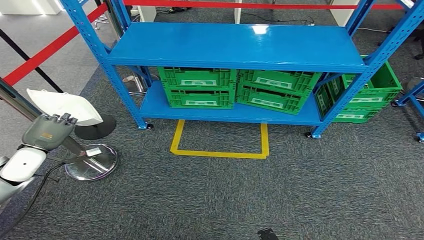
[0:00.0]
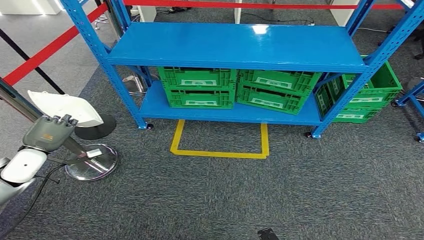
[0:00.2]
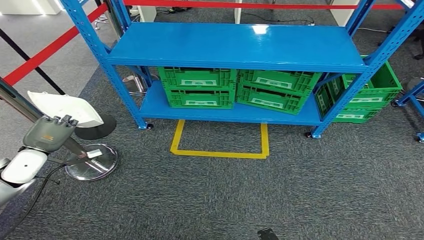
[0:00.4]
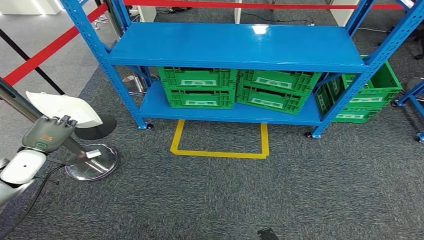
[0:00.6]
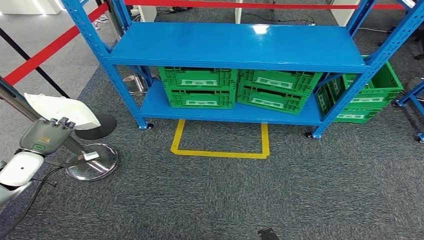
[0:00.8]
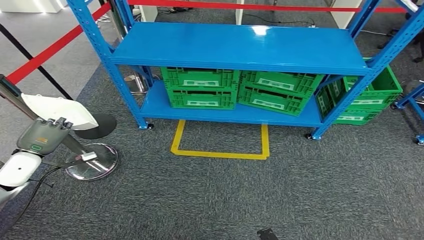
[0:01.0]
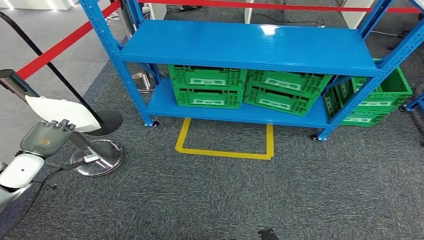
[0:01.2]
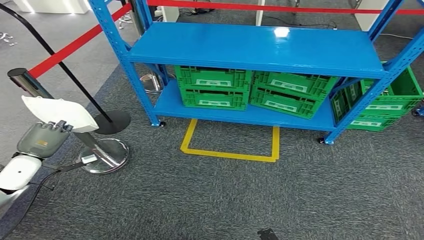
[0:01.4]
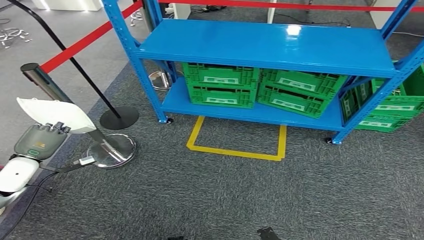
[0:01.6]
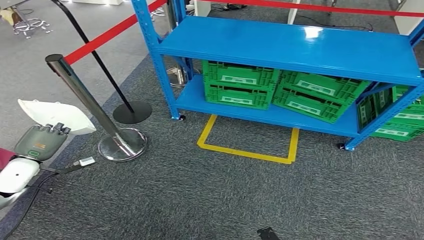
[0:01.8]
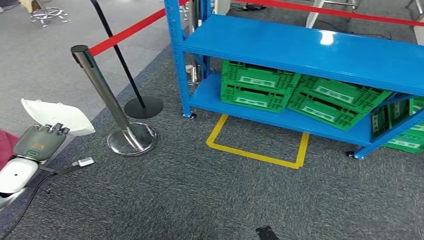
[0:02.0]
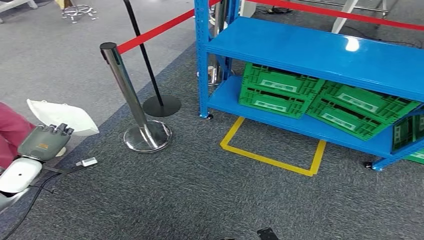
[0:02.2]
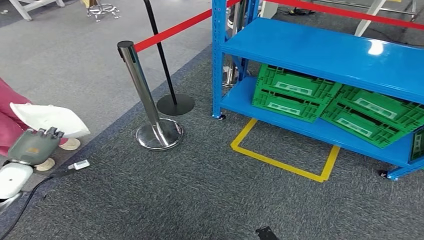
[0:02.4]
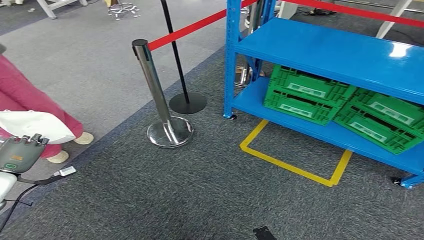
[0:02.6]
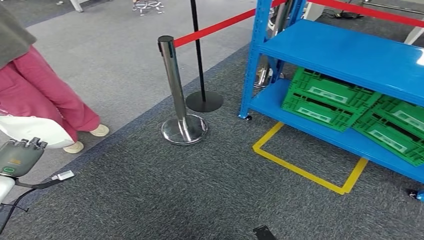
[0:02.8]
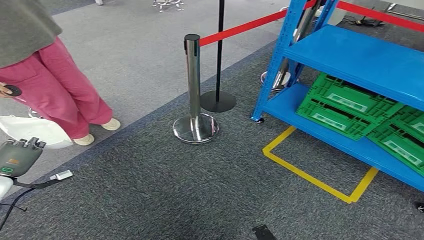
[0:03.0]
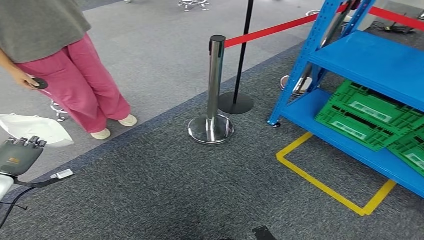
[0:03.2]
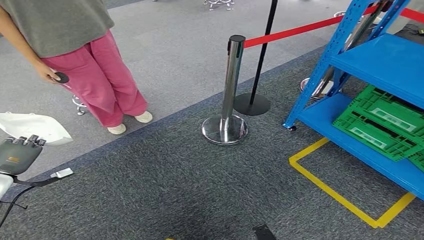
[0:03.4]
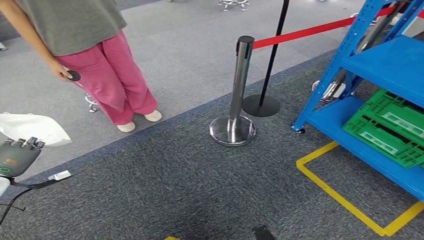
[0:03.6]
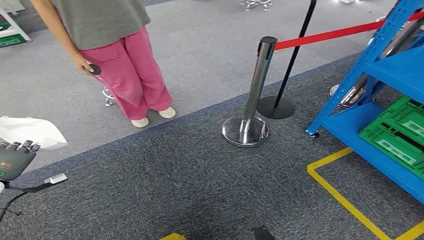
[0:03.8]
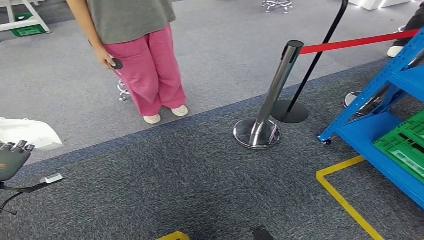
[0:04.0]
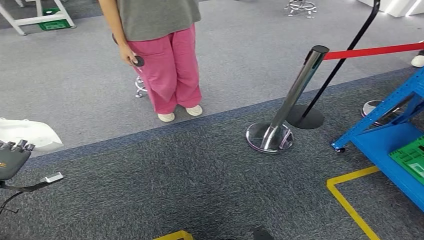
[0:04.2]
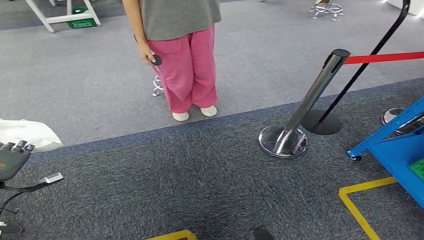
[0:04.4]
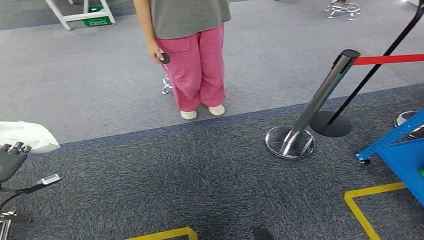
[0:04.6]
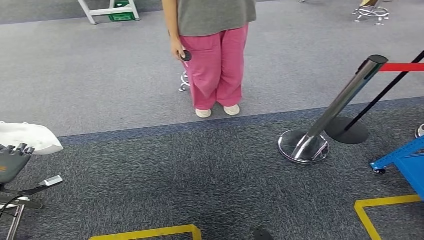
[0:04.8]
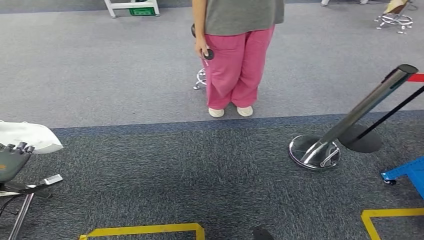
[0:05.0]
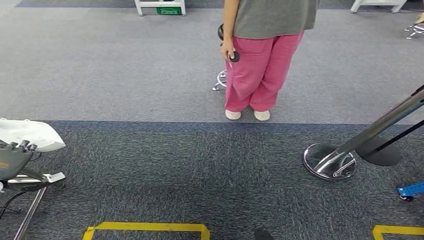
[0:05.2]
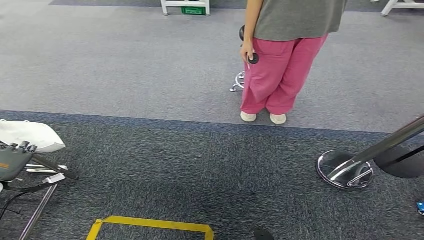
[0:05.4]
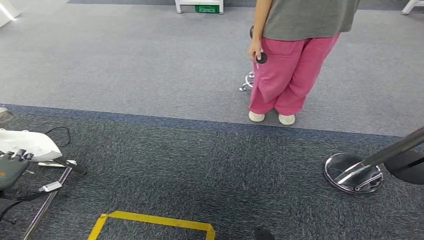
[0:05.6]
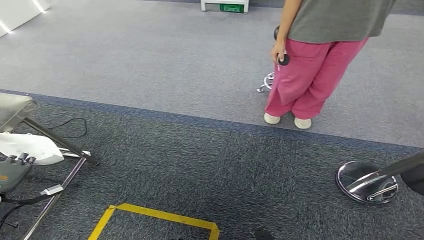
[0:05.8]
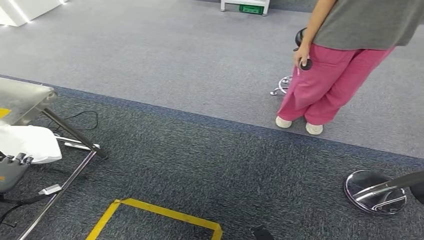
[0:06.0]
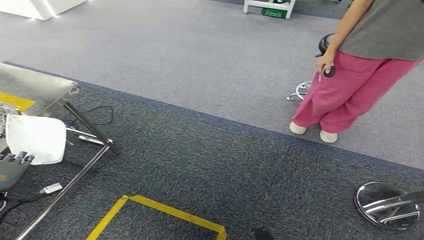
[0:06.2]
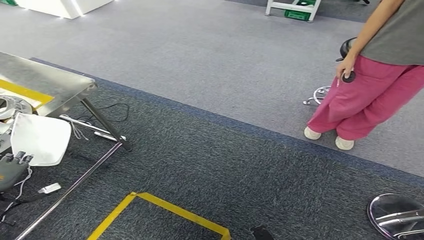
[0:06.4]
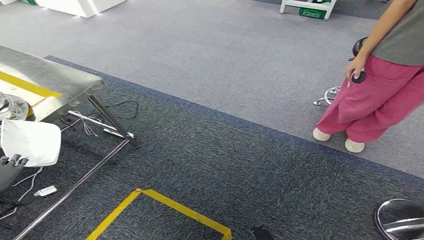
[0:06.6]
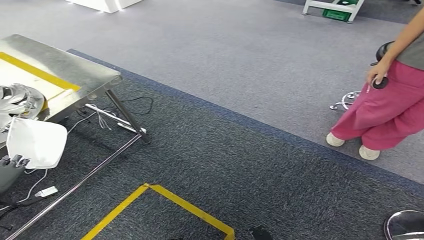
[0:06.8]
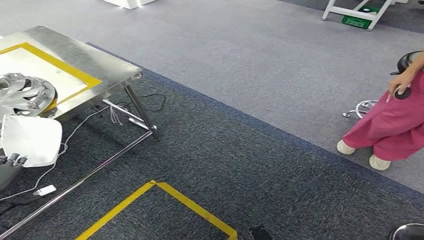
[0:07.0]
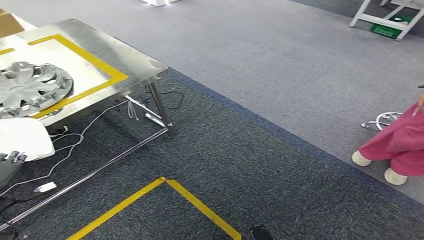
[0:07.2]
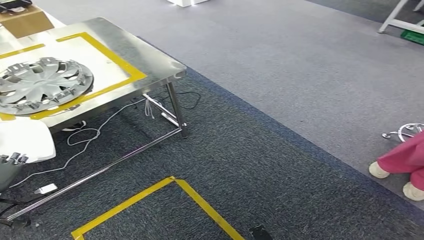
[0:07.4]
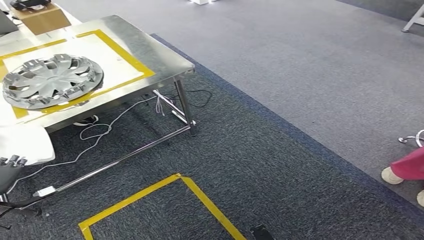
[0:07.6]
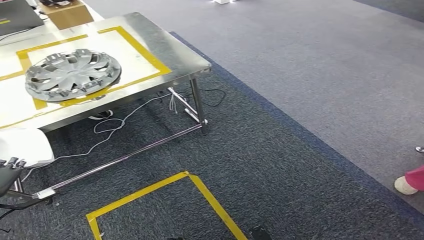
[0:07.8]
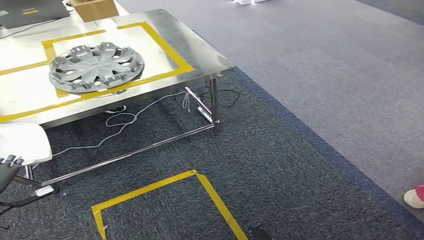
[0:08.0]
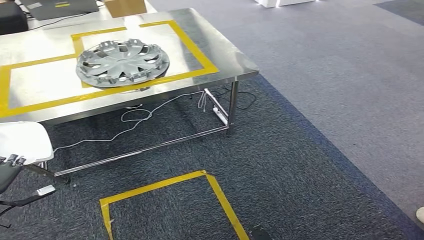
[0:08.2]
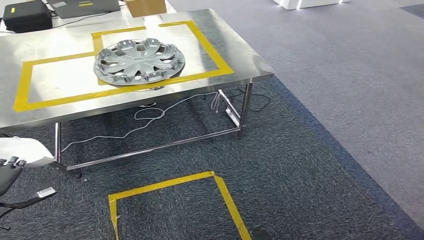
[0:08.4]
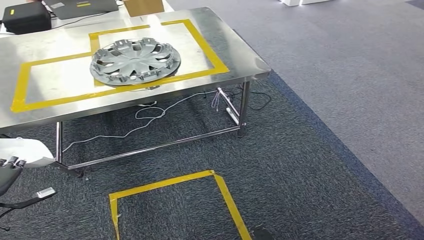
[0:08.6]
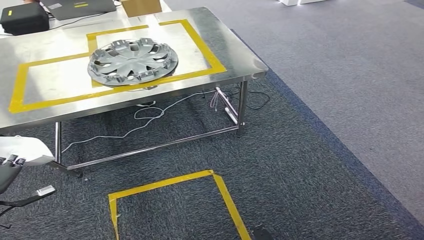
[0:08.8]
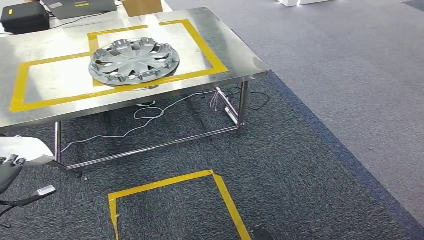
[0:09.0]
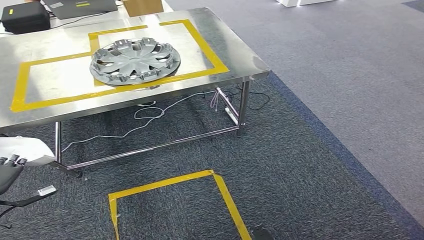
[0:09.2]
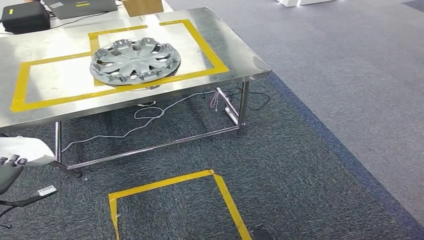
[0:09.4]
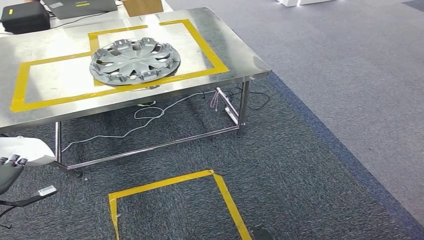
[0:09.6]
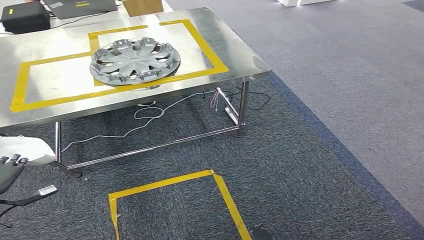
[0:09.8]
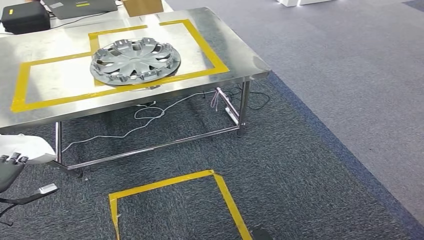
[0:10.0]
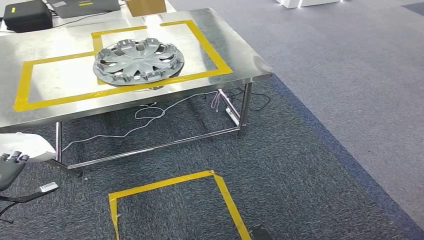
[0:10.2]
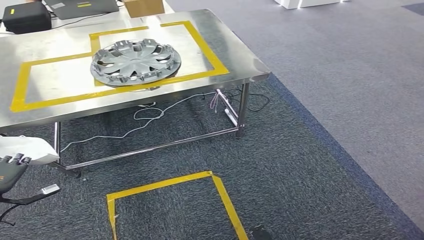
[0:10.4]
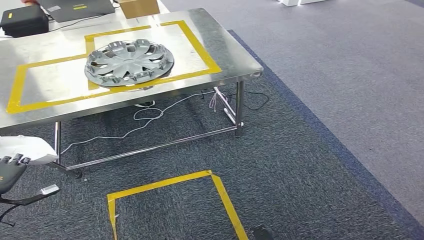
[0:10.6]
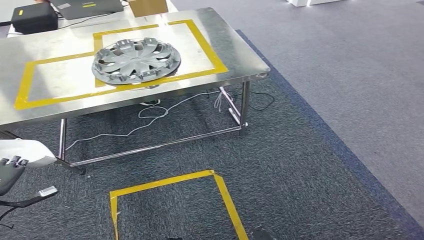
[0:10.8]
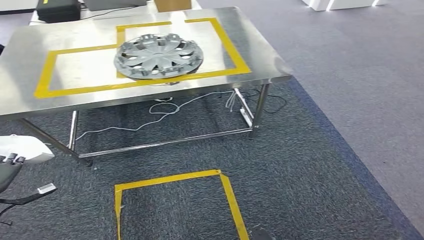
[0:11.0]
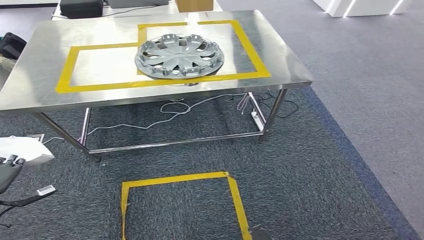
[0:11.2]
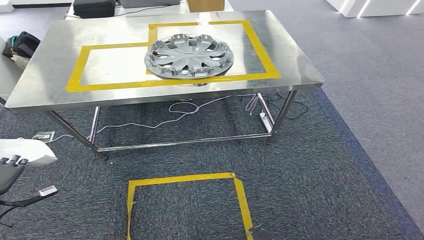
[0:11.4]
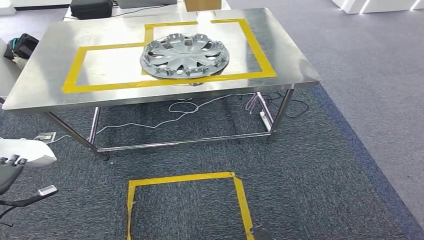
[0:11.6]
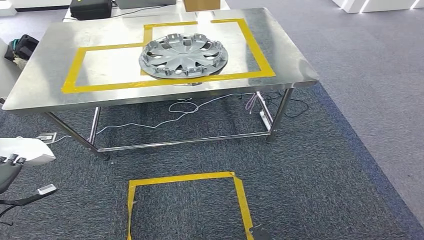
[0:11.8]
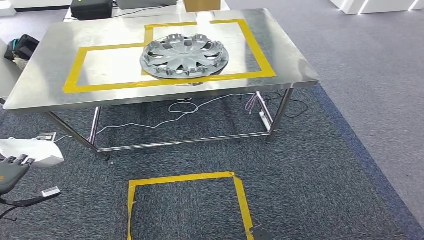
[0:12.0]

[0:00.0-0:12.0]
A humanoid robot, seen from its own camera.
Step, 0:00.0 to 0:11.8: Move the small parts to the workbench.
0:09.0 to 0:10.4: Neither hand changes place.

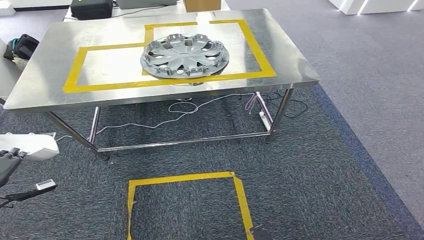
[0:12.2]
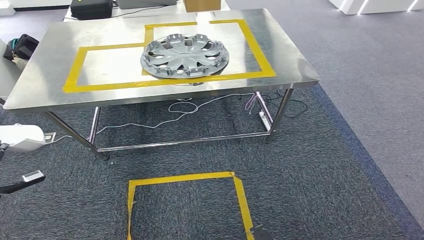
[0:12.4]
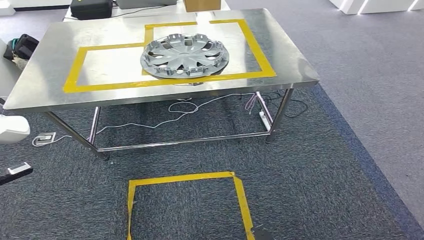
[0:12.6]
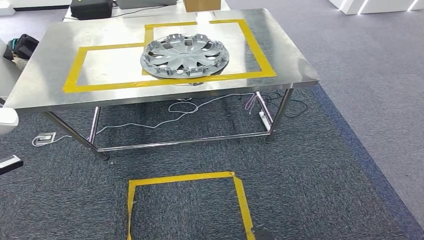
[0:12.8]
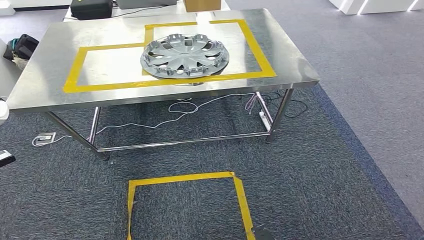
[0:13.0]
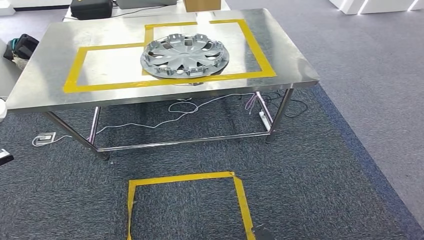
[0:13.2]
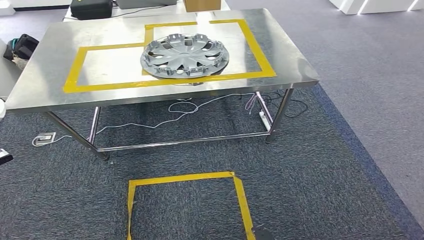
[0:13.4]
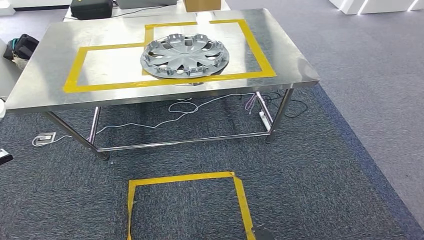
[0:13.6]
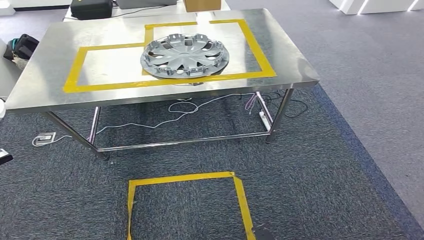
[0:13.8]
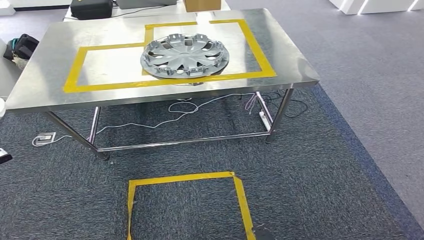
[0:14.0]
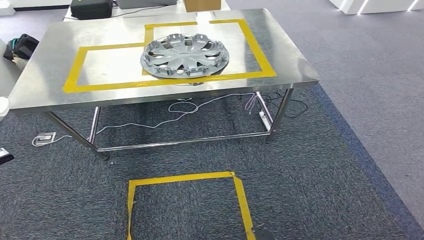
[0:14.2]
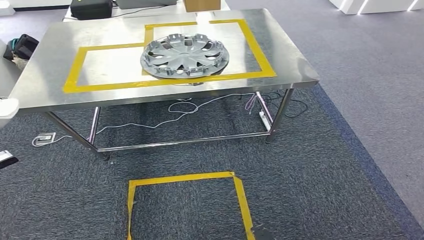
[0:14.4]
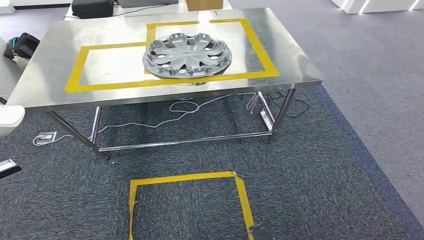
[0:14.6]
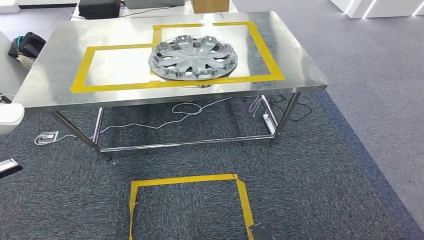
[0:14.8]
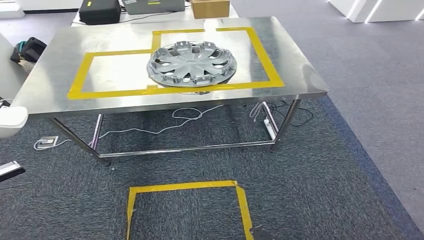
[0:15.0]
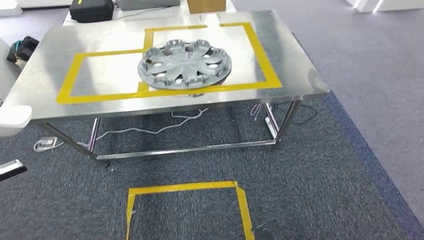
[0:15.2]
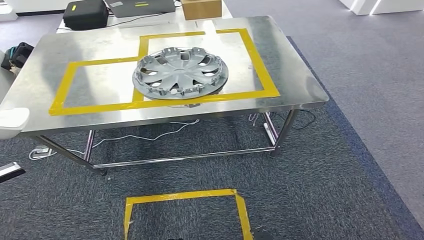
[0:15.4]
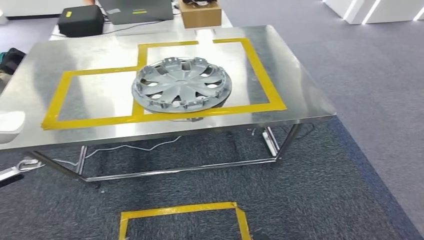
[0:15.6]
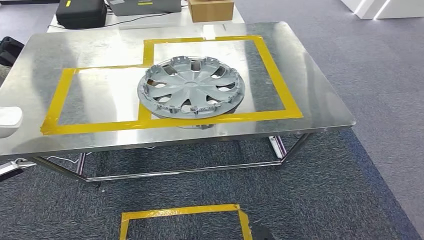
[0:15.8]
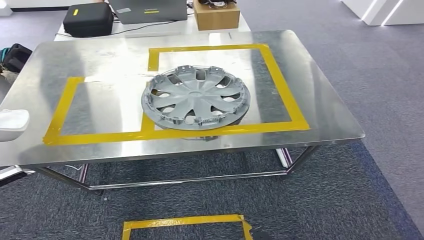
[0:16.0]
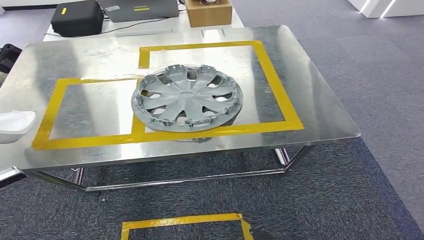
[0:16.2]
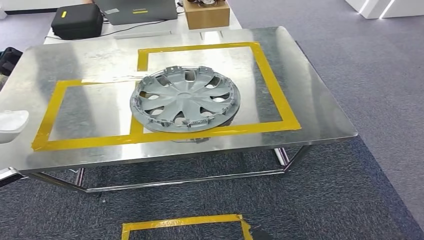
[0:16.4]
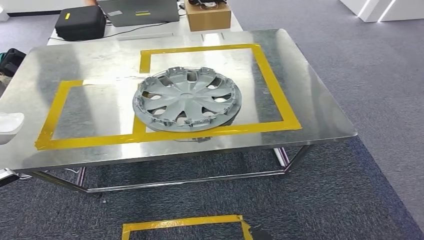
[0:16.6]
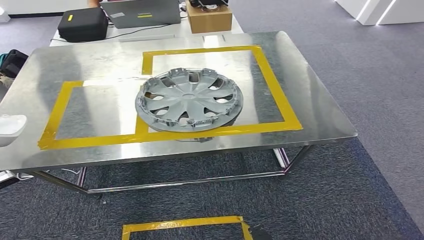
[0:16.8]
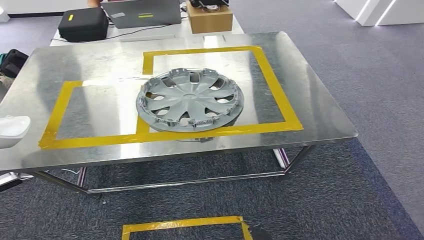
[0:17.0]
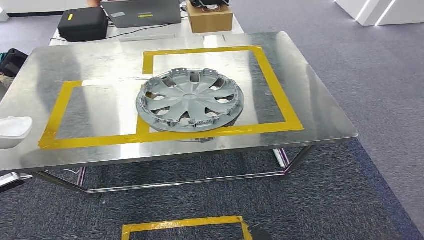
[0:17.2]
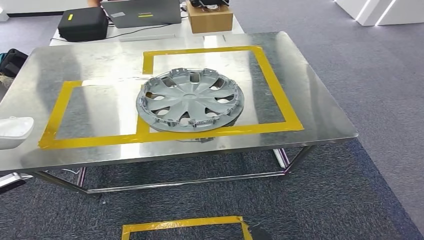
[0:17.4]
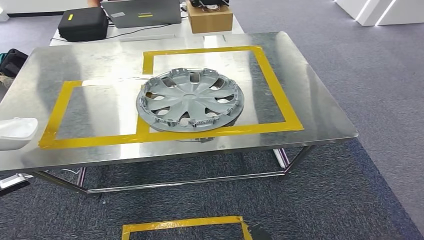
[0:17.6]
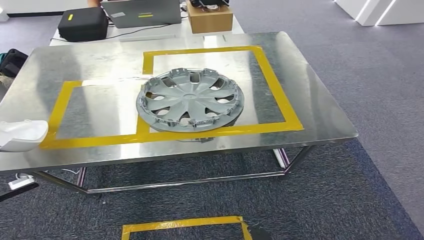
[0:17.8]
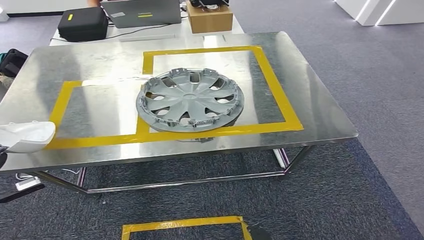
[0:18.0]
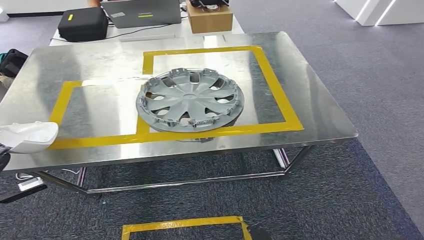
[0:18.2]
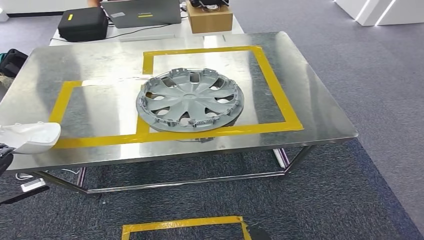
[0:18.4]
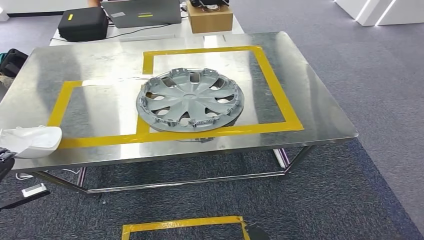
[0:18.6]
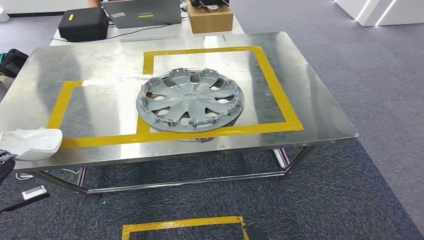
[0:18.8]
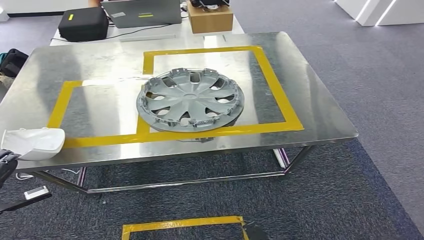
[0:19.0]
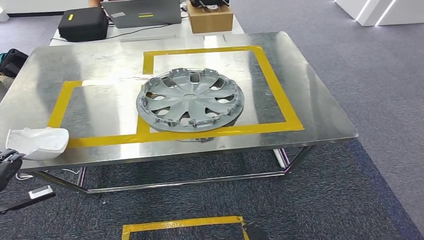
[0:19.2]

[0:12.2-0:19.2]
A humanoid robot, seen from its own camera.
0:12.2 to 0:13.6: The left hand goes some 10 cm upward.
0:16.4 to 0:19.2: The hands stay close to where they were, moving slightly.
